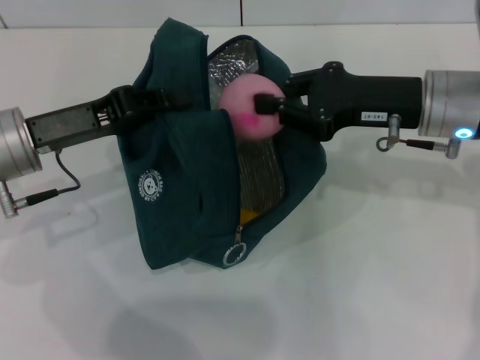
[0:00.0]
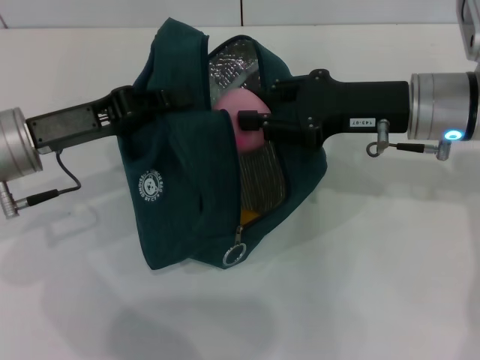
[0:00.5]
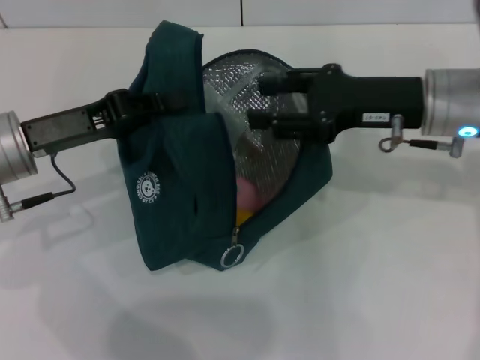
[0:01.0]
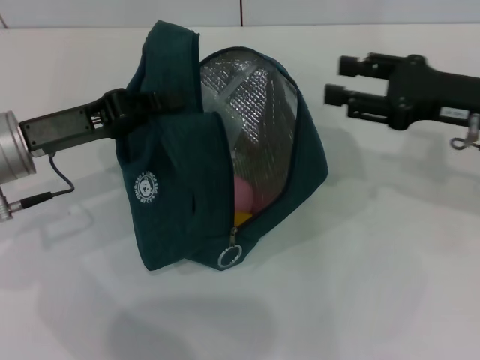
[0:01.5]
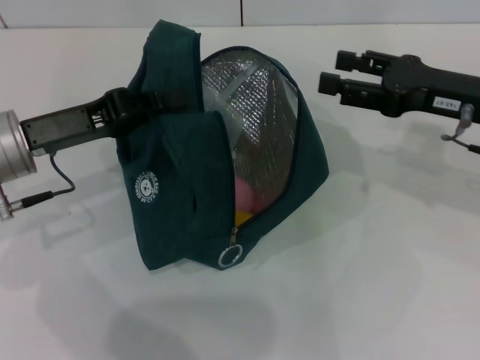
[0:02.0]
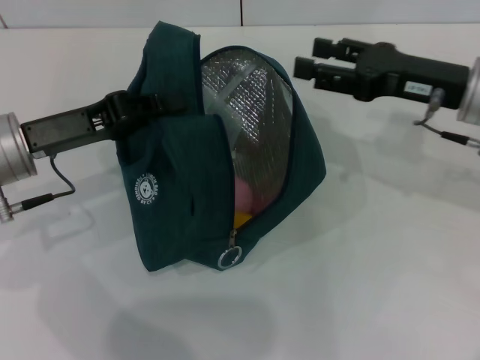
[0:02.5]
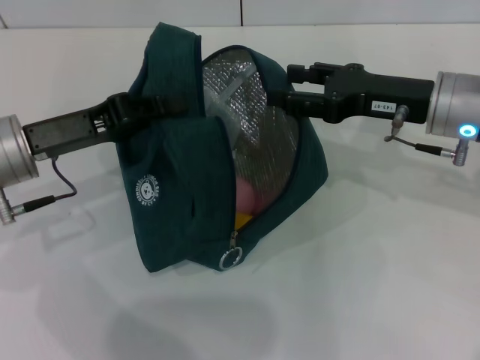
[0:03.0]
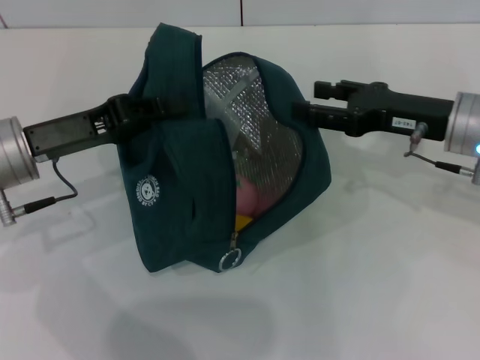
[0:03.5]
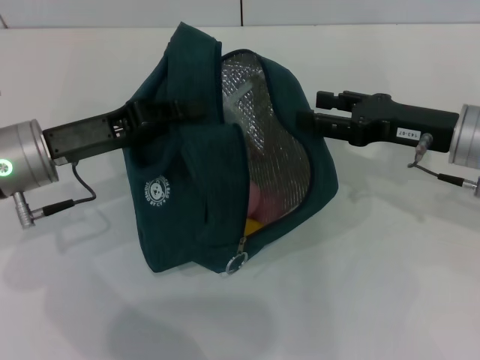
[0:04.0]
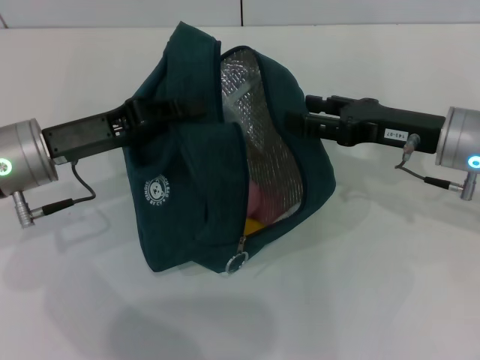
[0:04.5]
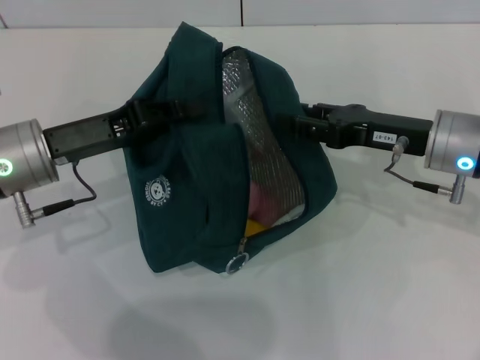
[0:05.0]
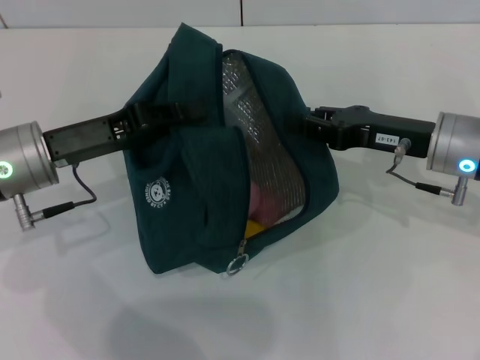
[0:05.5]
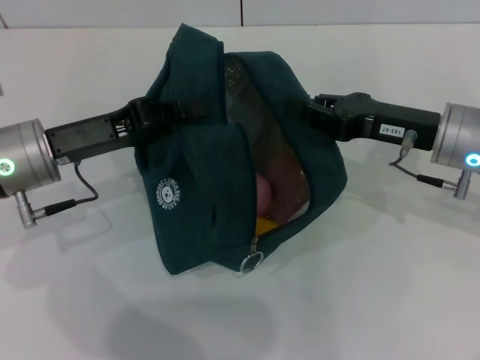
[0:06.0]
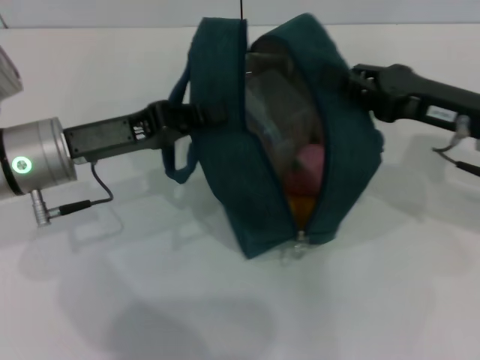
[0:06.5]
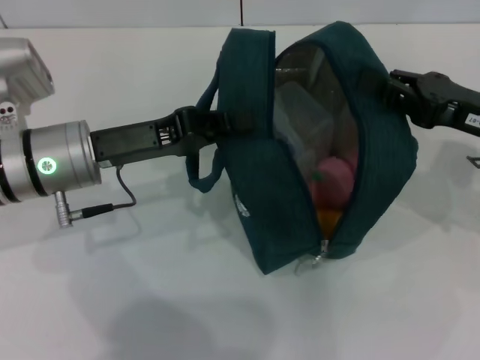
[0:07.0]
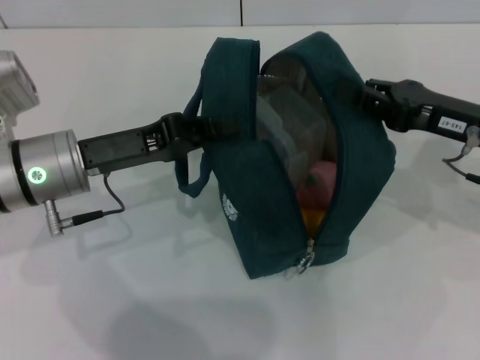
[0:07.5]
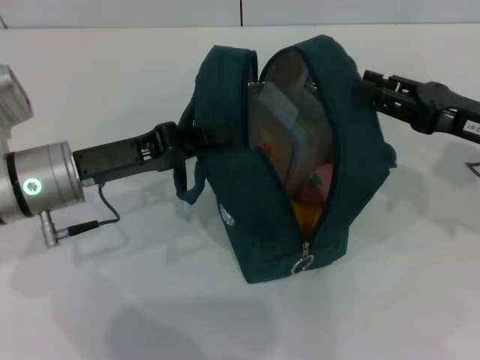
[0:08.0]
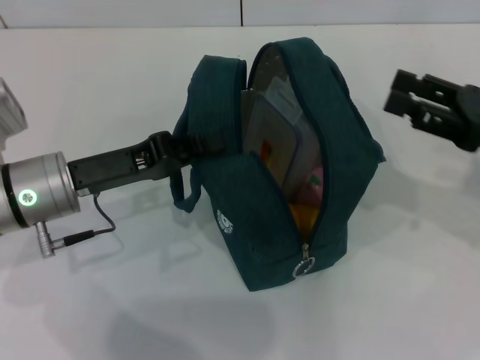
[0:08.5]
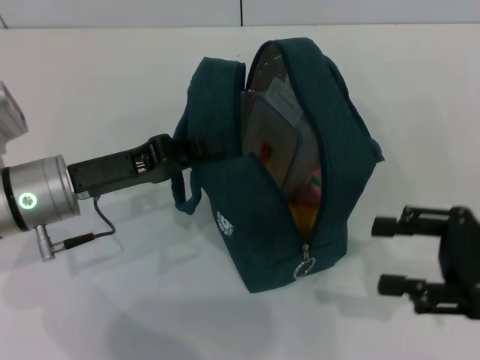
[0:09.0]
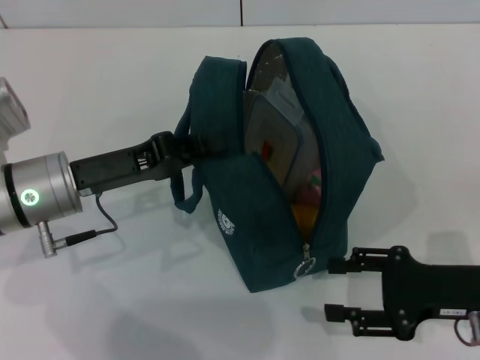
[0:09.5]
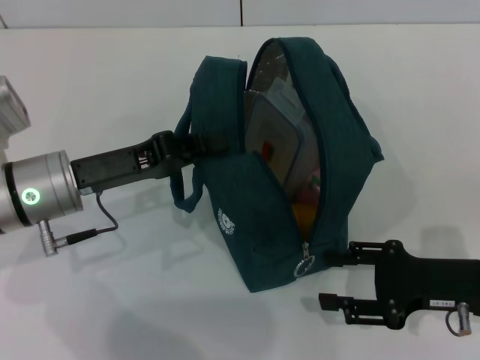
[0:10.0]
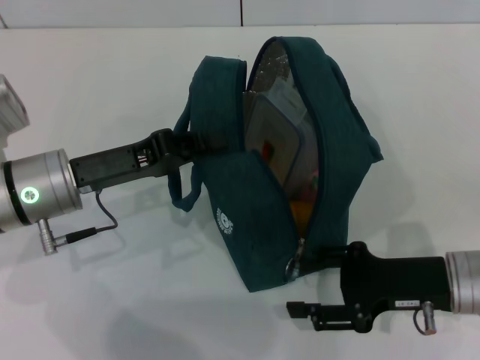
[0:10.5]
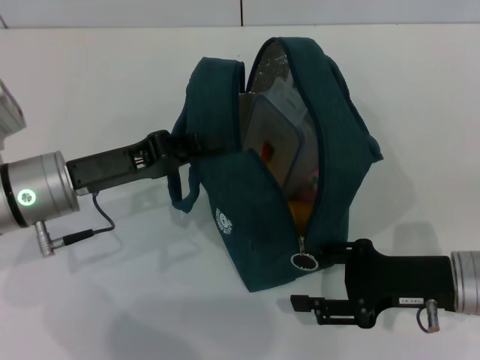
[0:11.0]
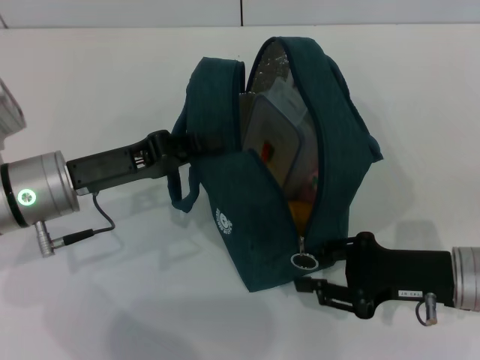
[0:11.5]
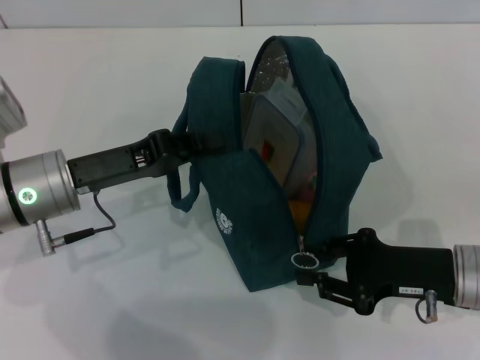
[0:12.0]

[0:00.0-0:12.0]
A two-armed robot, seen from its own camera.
Step, 0:01.0 to 0:08.0: Hold the lunch bag with your right hand.
0:00.0 to 0:02.0: The right gripper heads to the right, covering roughly 5 cm, and opens.
0:04.0 to 0:06.0: The right gripper closes up.
0:06.0 to 0:08.0: The right gripper goes some 5 cm to the right.
0:08.0 to 0:10.0: The right gripper shifts some 10 cm downward and backward, and opens up.
0:10.0 to 0:12.0: The right gripper closes its fingers.

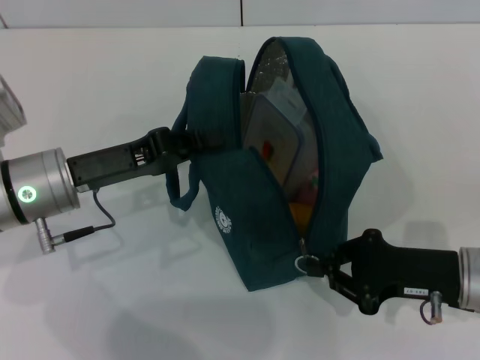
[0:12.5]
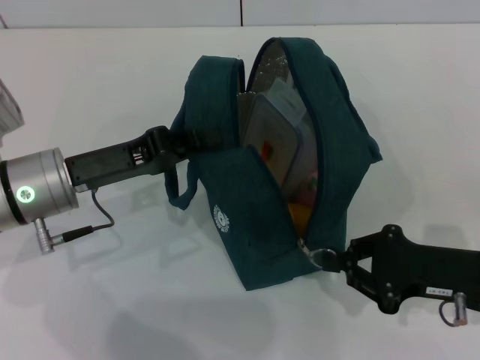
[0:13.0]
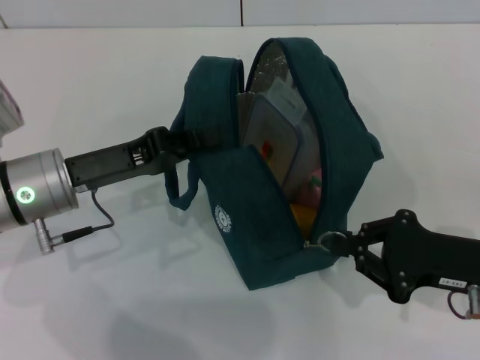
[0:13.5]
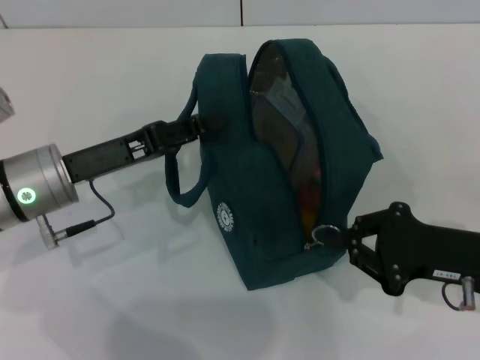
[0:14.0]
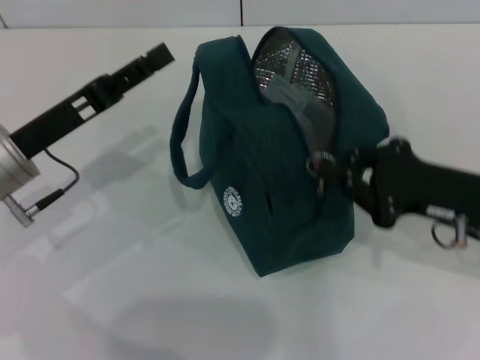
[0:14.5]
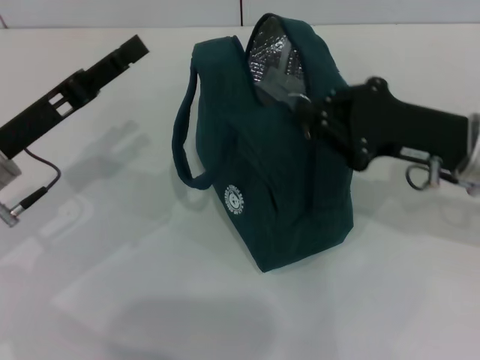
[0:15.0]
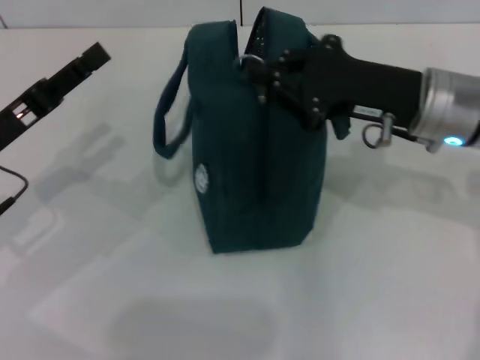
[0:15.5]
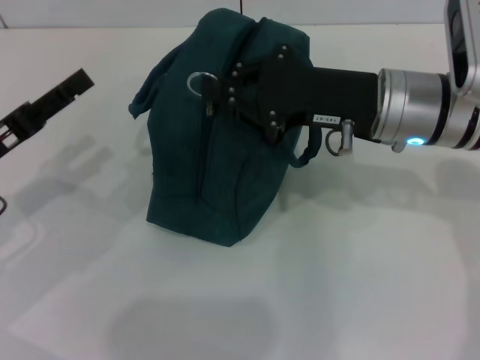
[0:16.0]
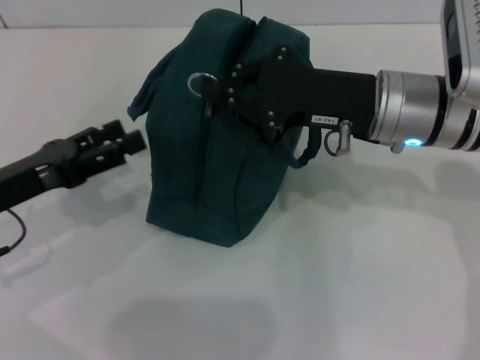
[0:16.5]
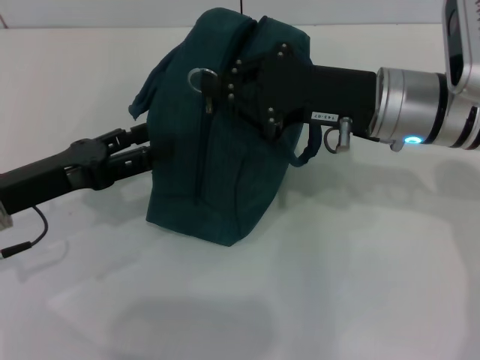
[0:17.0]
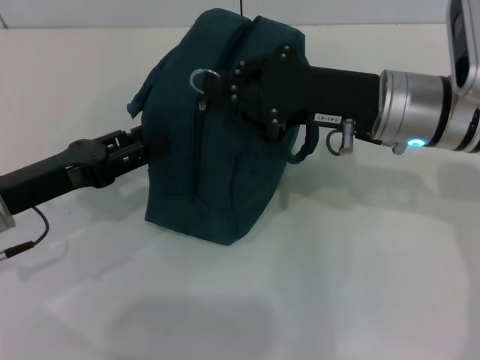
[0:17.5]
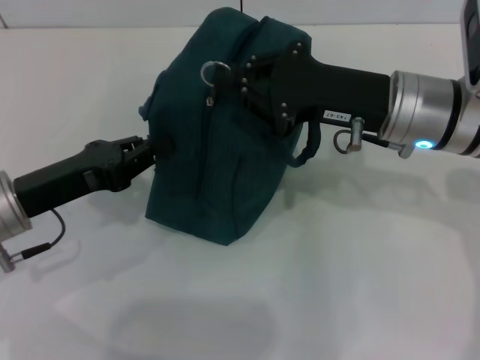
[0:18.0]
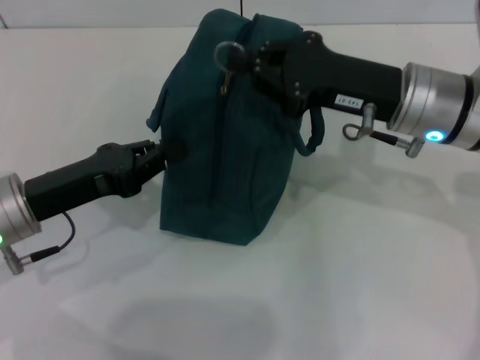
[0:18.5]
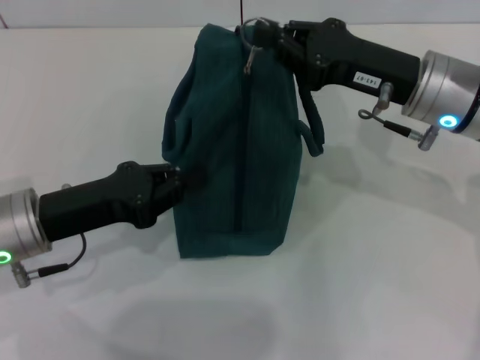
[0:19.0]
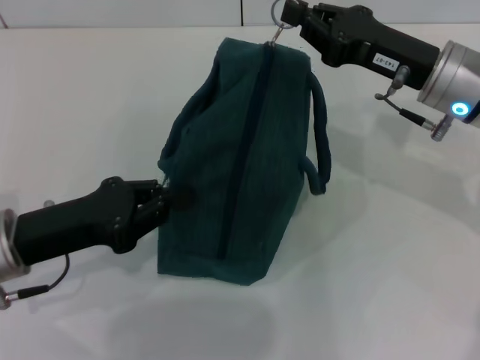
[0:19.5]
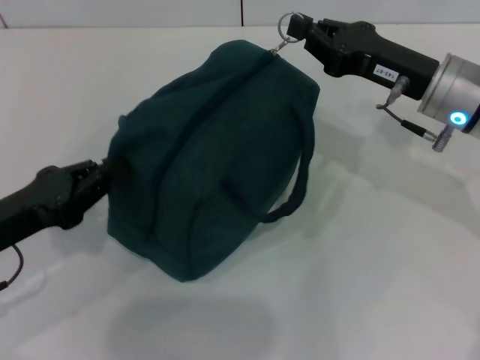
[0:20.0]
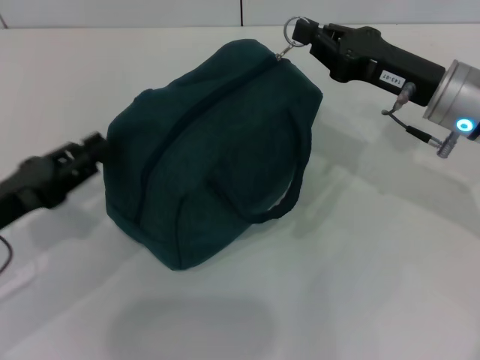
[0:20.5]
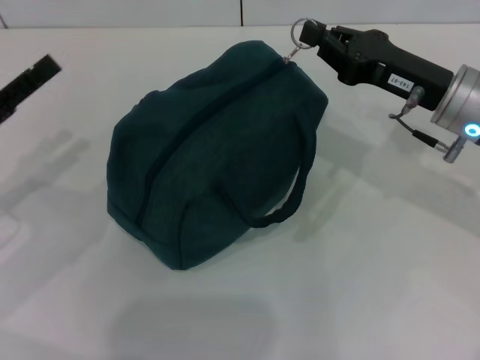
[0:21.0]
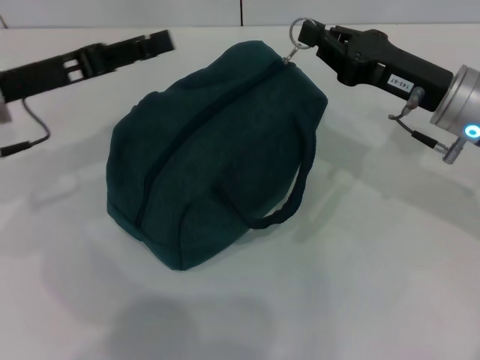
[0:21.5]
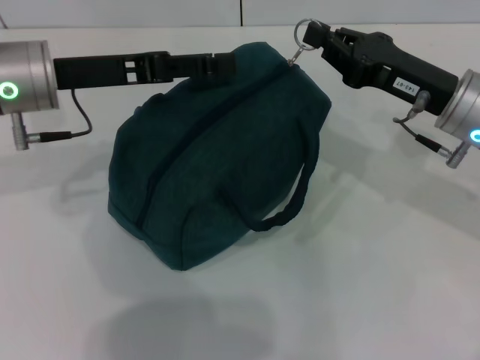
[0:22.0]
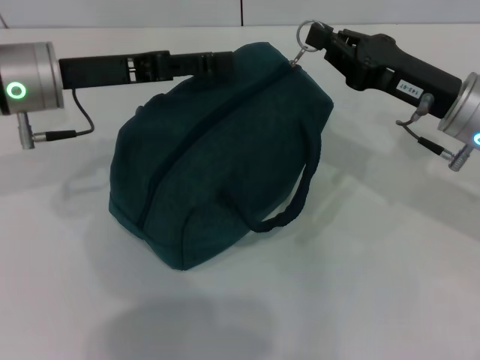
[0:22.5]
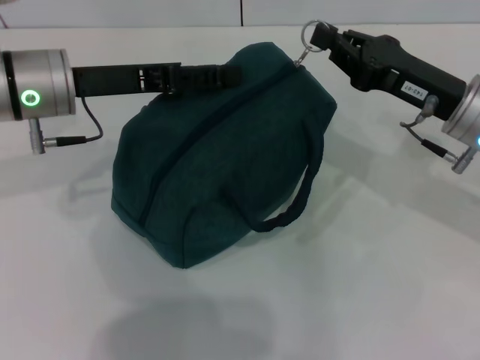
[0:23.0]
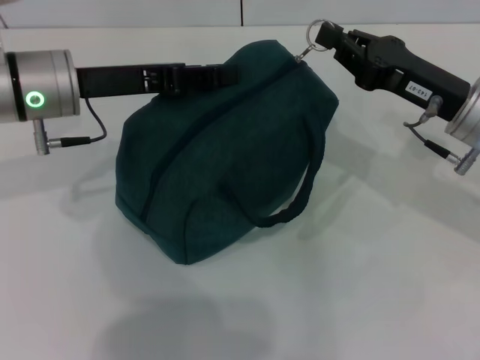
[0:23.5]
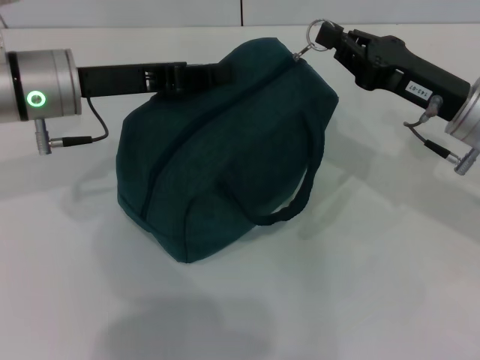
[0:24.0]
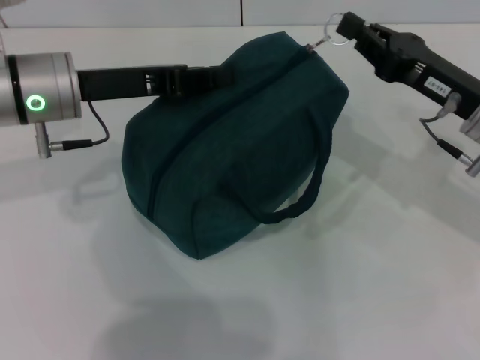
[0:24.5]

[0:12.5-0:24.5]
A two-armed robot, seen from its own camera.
0:12.5 to 0:14.5: The left gripper opens up; the right gripper travels upward by approximately 5 cm.
0:14.5 to 0:16.5: The right gripper is displaced to the left, forward and upward by roughly 15 cm; the left gripper changes place by about 5 cm.
0:16.5 to 0:18.5: The left gripper closes its fingers.
0:18.5 to 0:20.5: The left gripper moves approximately 5 cm.
0:20.5 to 0:22.5: The left gripper shifts roughly 20 cm forward, upward and to the right, and opens its fingers.
0:22.5 to 0:24.5: The left gripper closes its fingers.

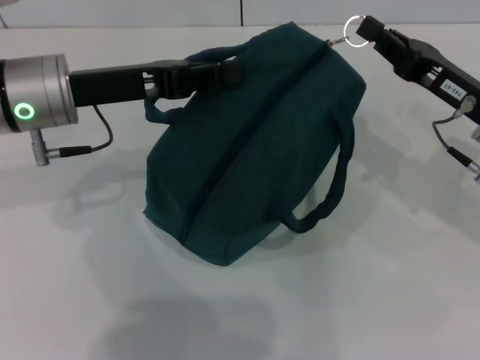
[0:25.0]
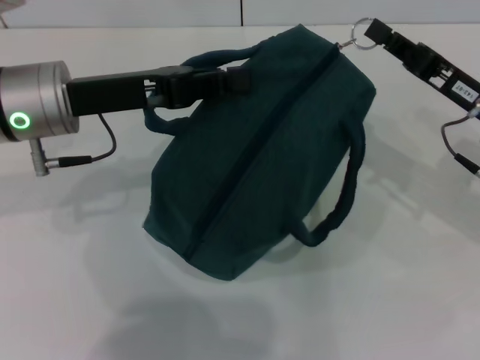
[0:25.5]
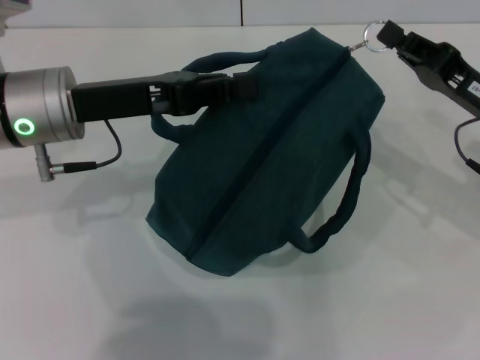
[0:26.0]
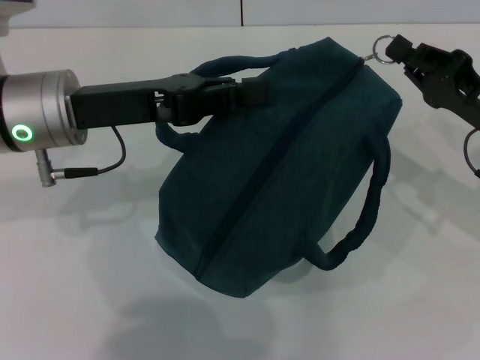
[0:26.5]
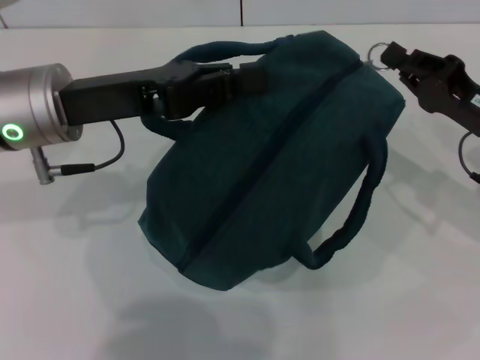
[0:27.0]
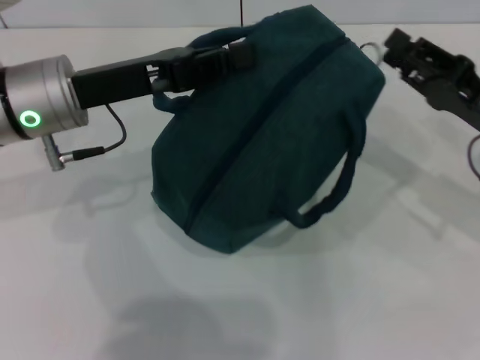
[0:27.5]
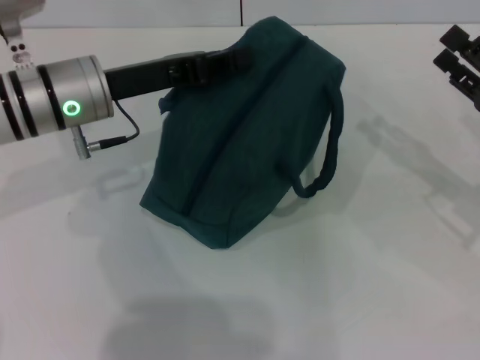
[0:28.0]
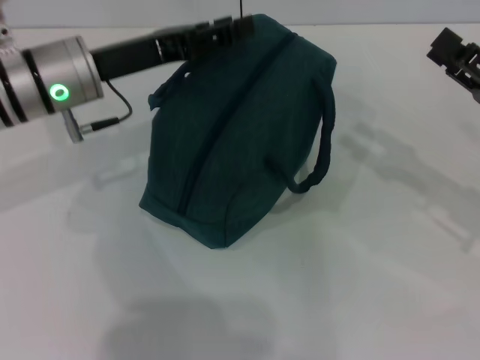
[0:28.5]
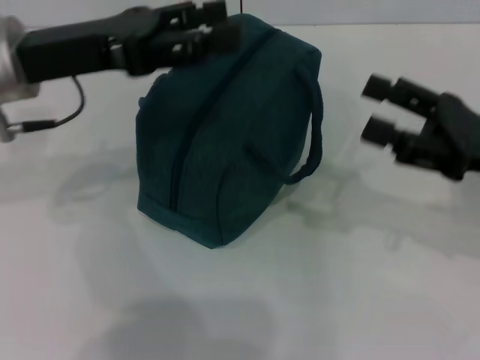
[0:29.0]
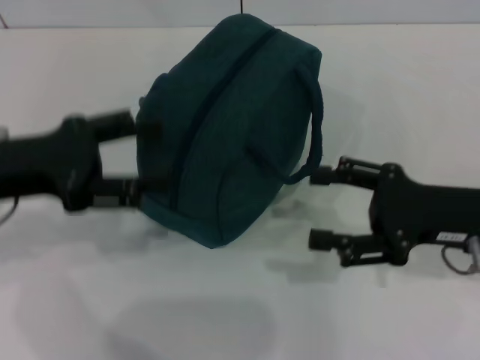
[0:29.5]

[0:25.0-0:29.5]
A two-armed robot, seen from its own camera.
Step, 0:25.0 to 0:27.5: Zip up the lunch bag with your right hand.
Step, 0:28.0 to 0:28.5: Hold the lunch bag with your left hand.
0:27.0 to 0:29.5: The right gripper shifts by about 5 cm, and opens its fingers, while the left gripper shifts some 10 cm to the left, and opens up.